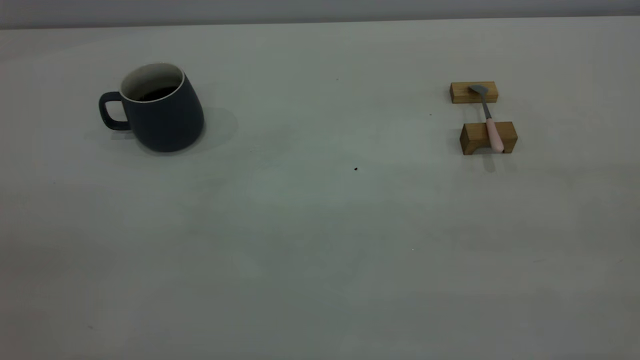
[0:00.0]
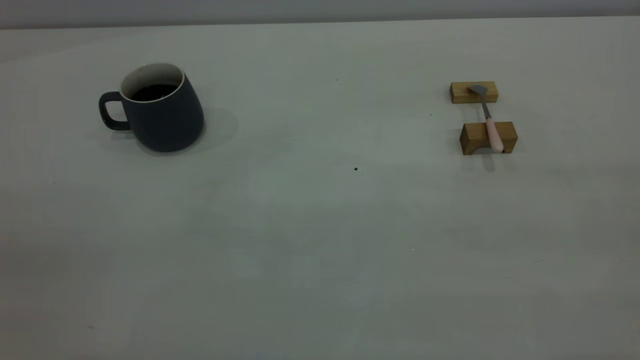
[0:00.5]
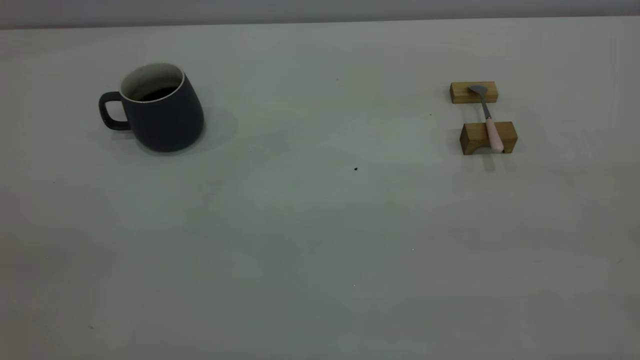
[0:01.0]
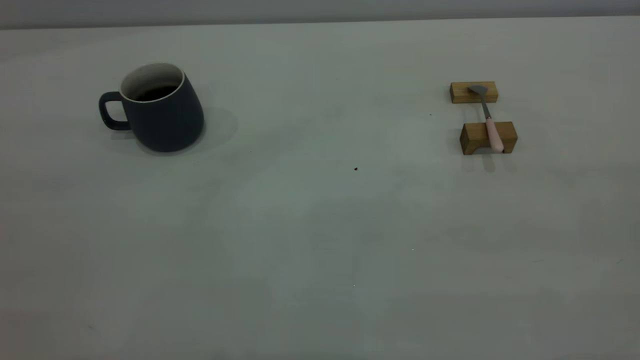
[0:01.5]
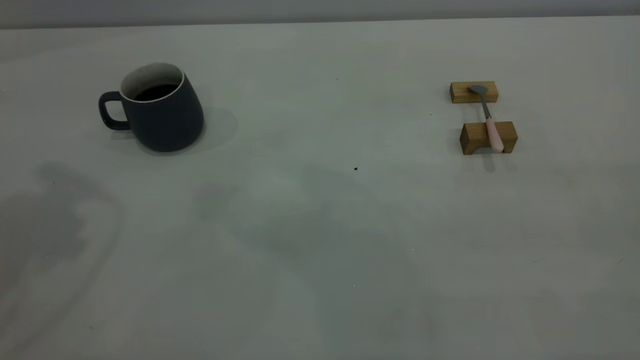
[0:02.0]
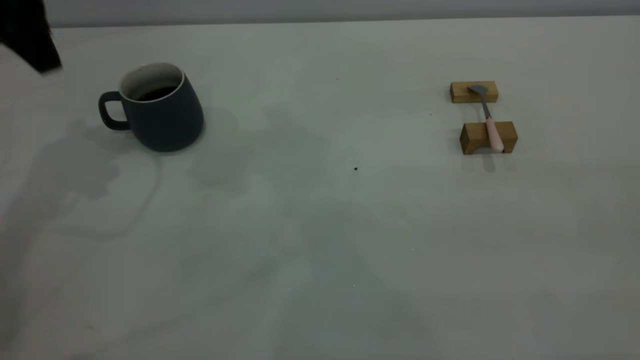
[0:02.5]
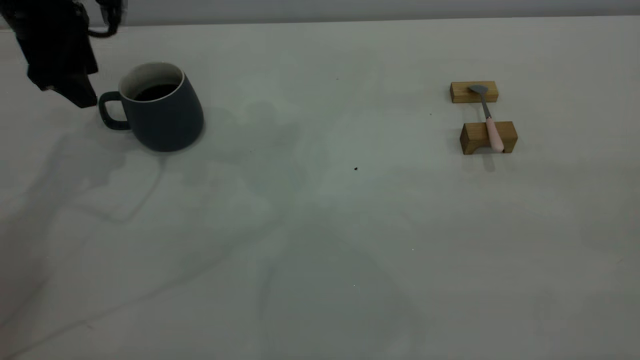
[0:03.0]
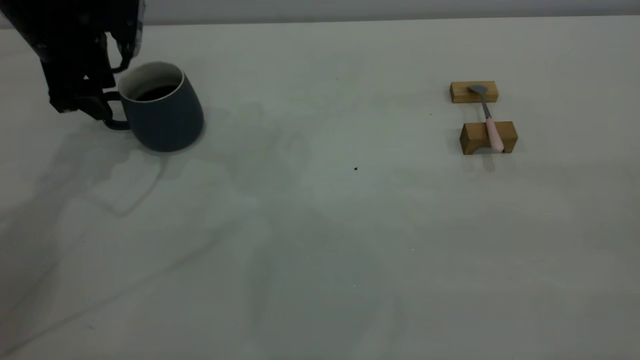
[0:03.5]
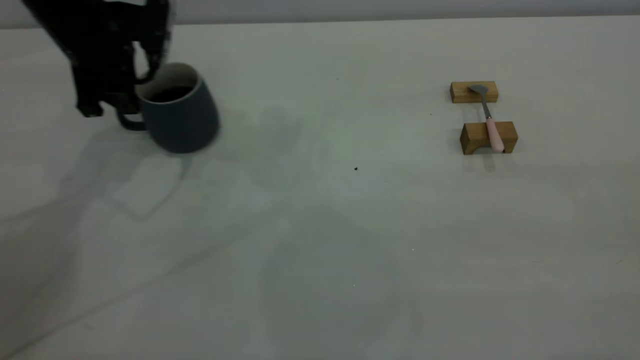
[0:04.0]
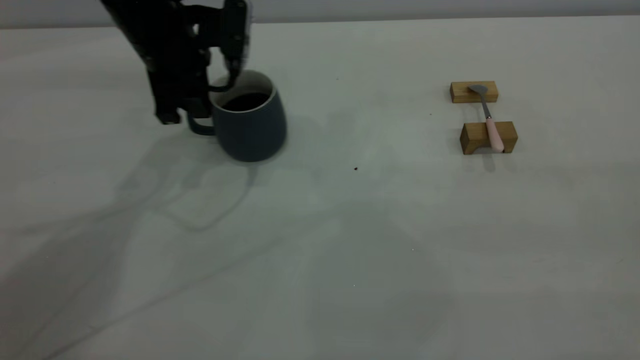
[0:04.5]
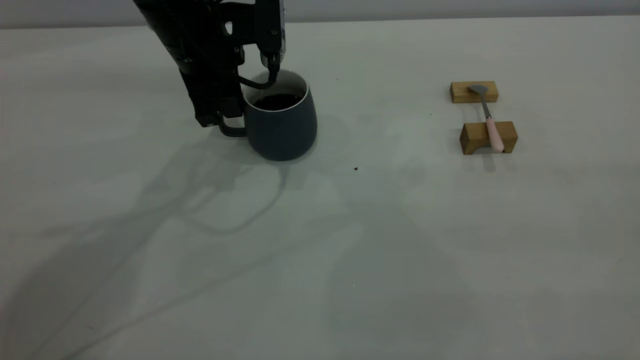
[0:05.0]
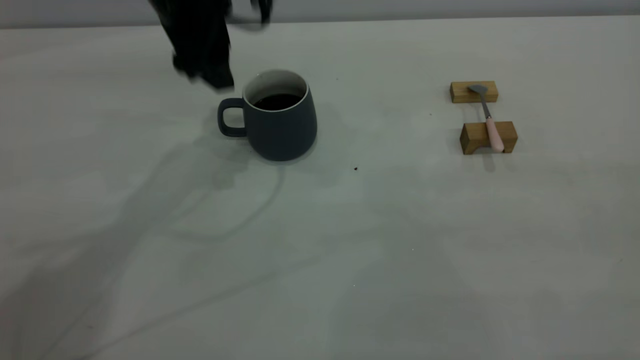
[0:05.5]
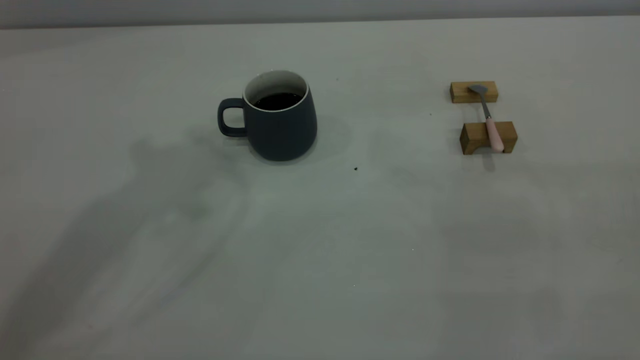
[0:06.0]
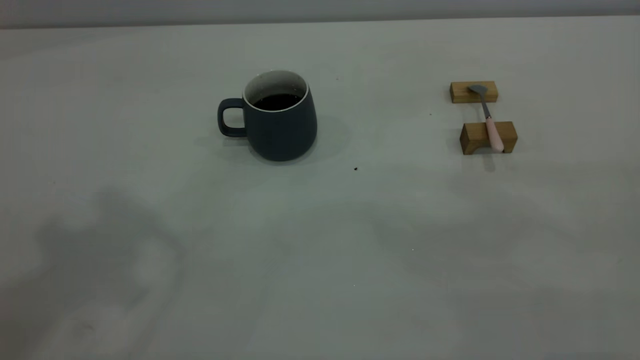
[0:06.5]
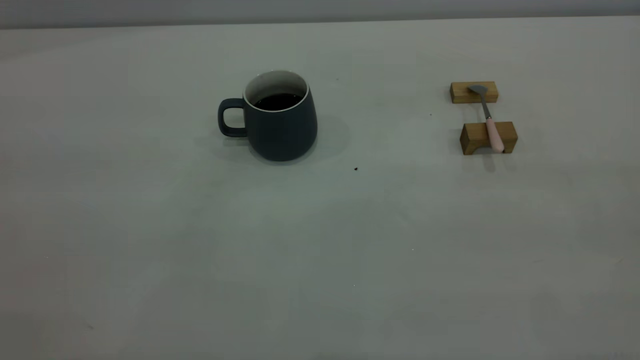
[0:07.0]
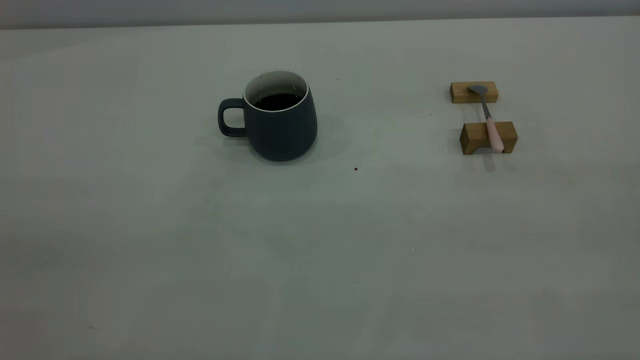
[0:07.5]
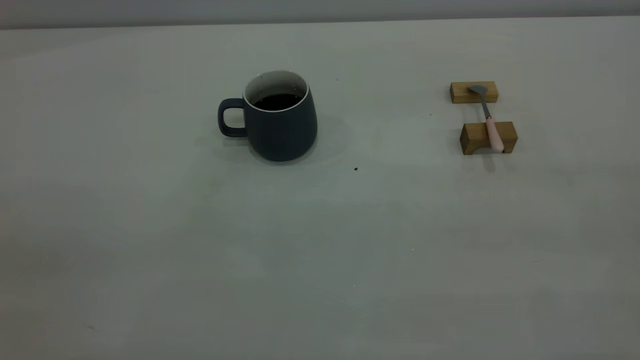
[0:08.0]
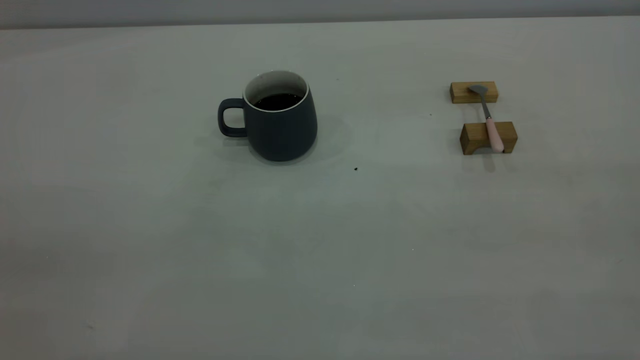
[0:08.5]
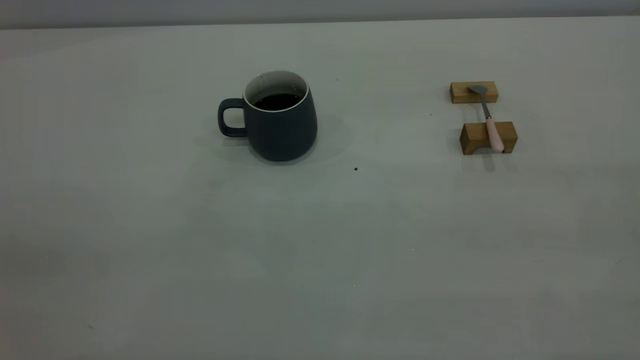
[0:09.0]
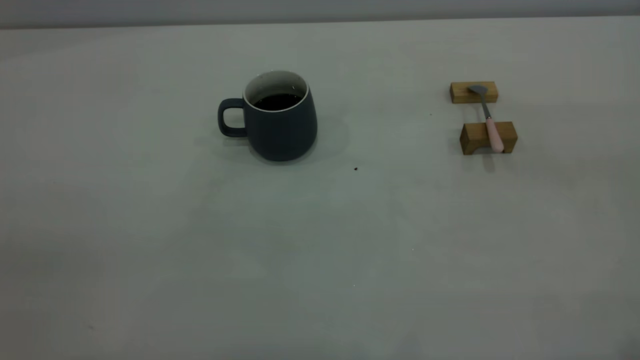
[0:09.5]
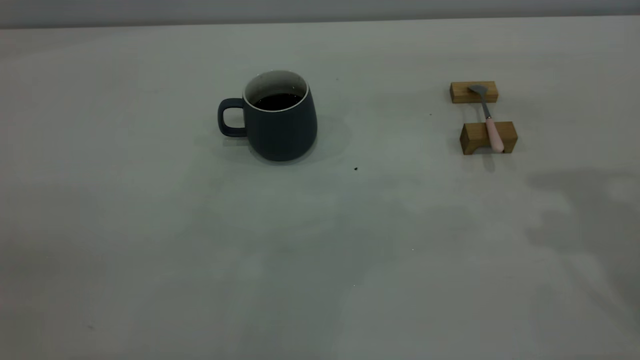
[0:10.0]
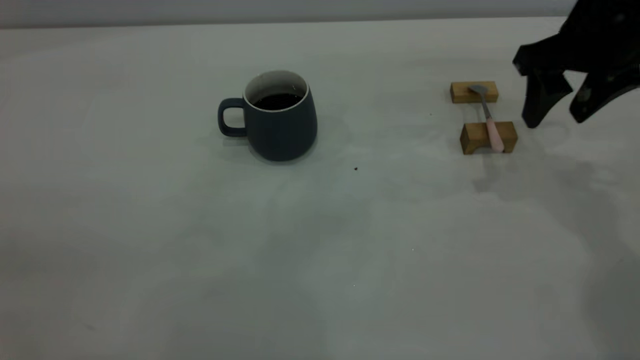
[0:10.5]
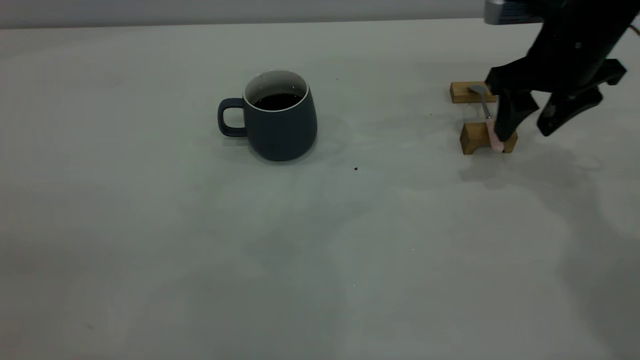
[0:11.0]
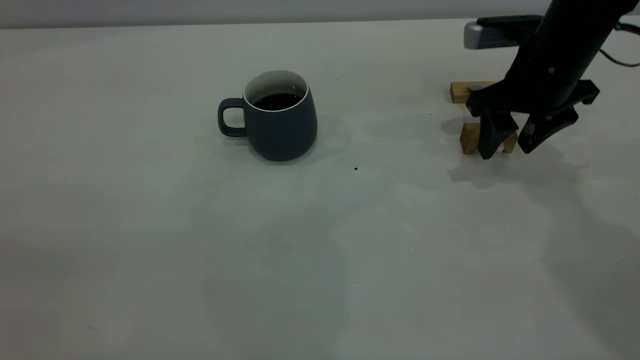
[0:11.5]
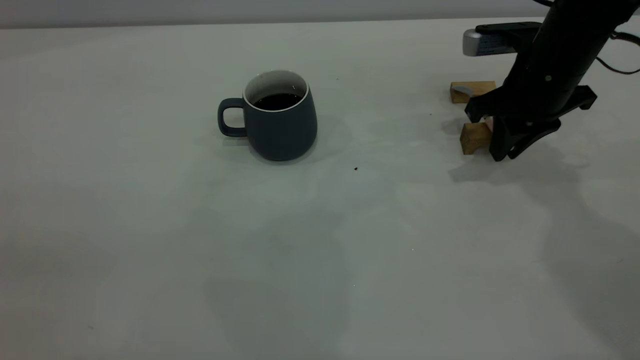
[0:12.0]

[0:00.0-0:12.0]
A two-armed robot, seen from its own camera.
Step, 0:00.0 to 0:05.5: Move the cup with coffee to the center of view.
0:02.0 to 0:04.0: The left gripper moves downward and forward, approximately 25 cm, and closes.
0:04.0 to 0:06.0: The left gripper shifts some 30 cm upward and backward, and opens its fingers.
0:10.0 to 0:12.0: The right gripper goes roughly 20 cm downward and forward, and closes its fingers.

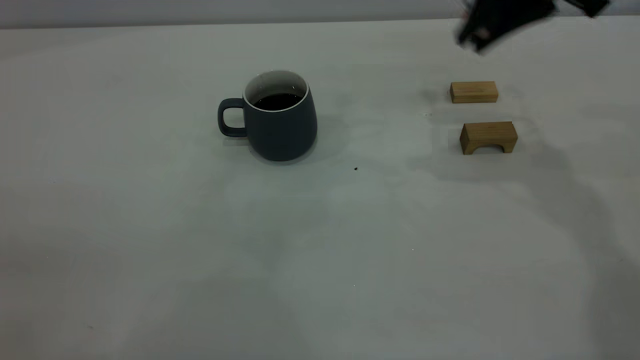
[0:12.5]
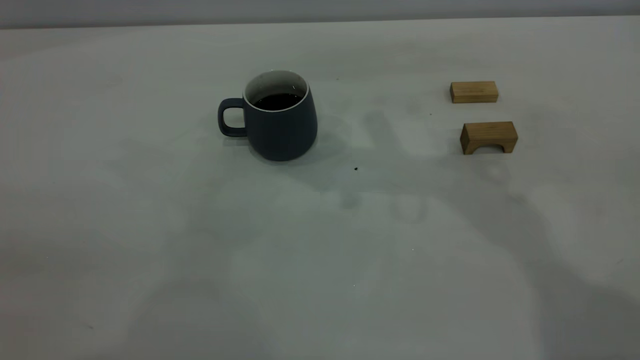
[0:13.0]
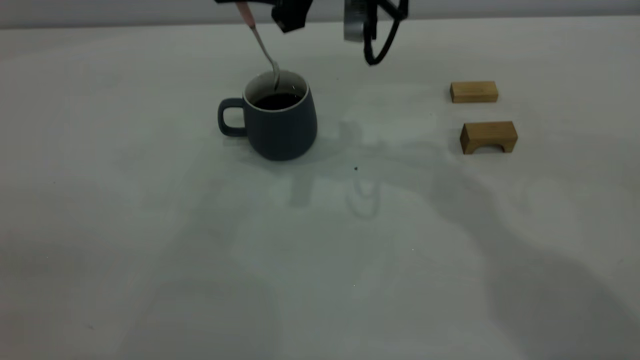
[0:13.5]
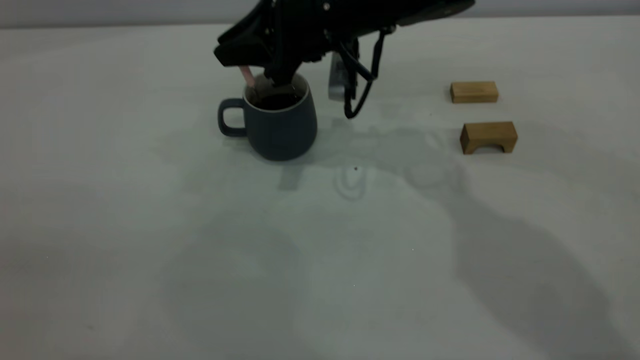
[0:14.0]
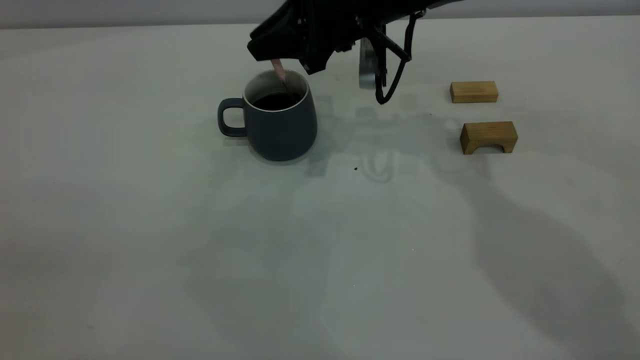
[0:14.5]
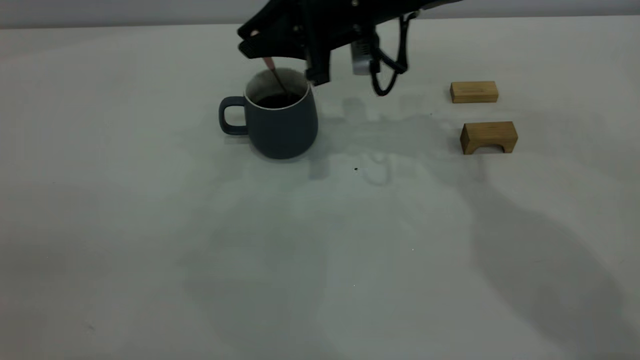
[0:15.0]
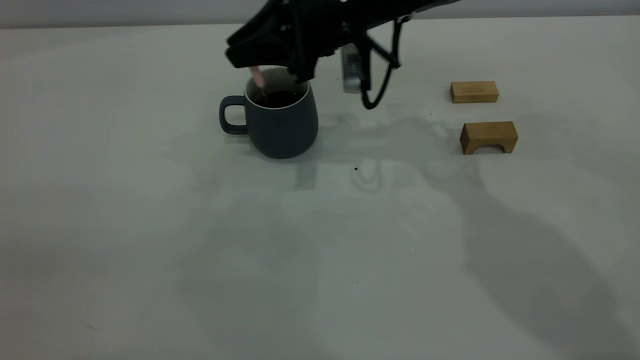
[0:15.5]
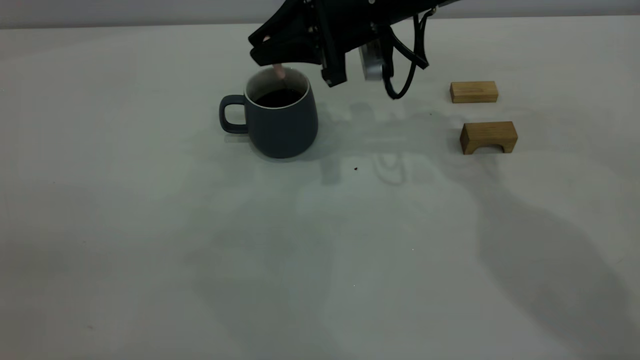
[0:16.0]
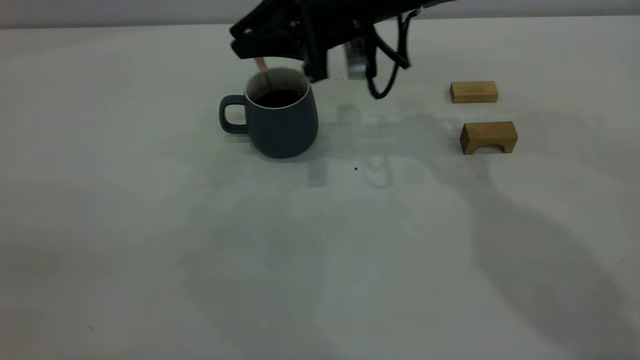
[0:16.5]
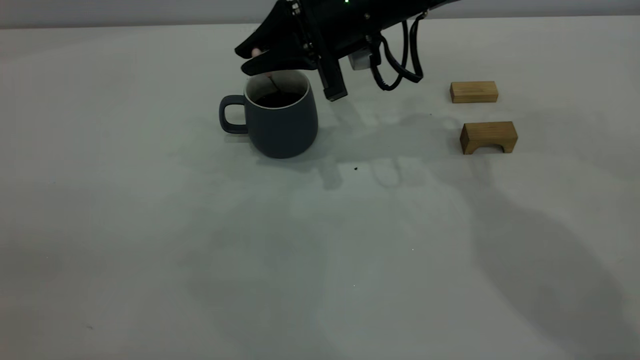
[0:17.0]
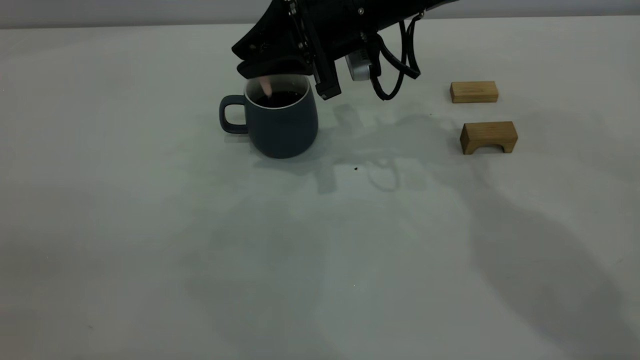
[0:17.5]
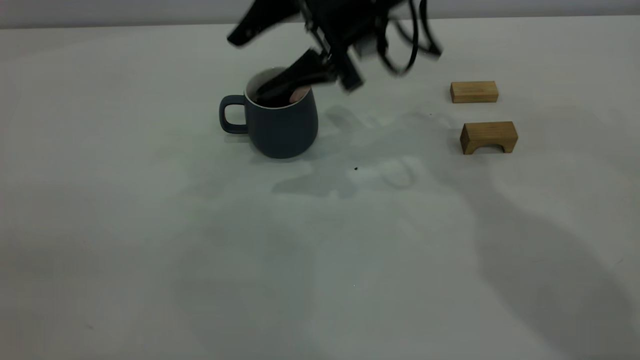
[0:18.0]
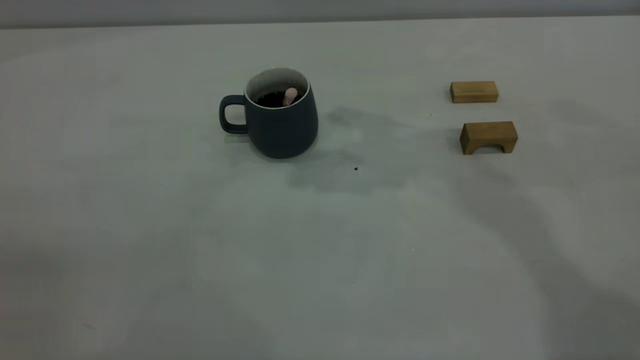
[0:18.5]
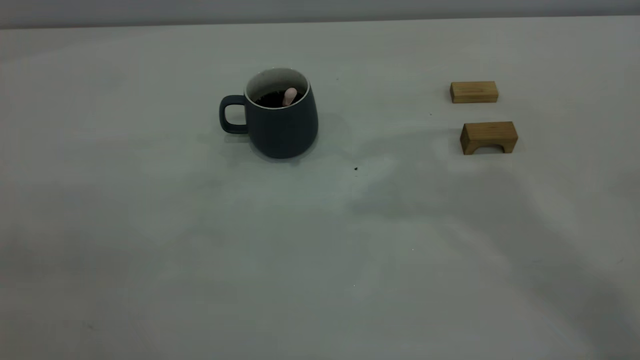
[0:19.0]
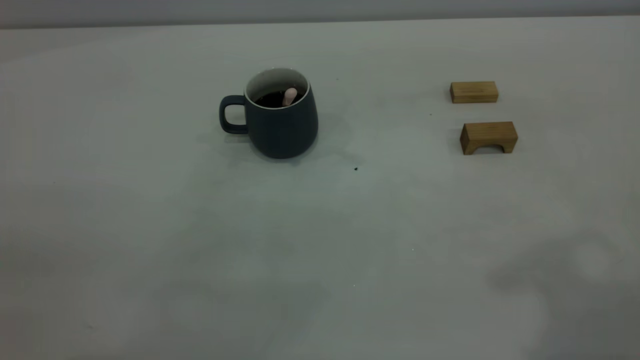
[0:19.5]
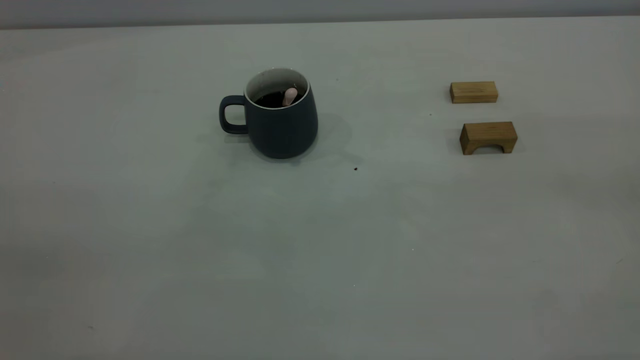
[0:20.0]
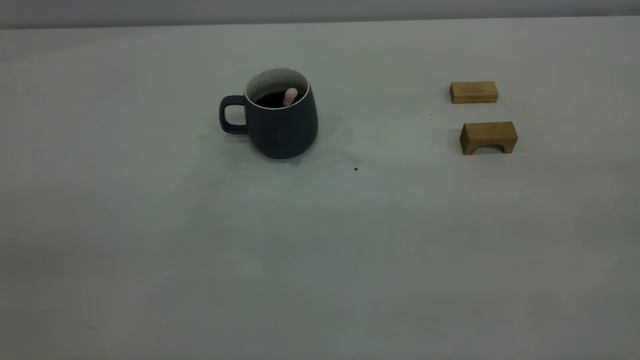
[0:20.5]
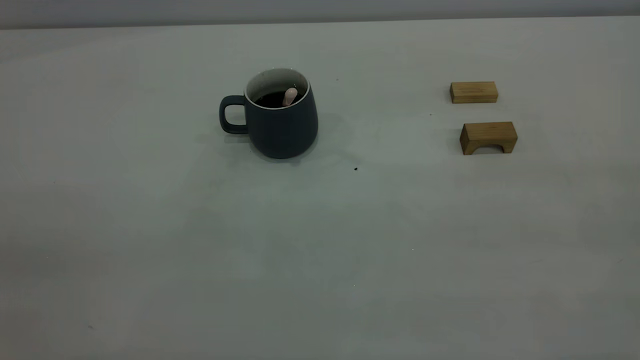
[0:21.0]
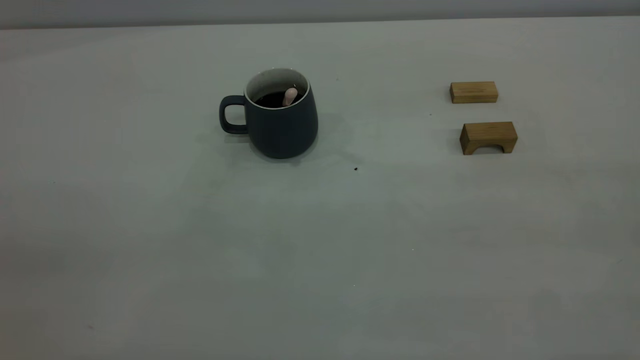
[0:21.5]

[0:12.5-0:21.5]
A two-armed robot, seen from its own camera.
Step, 0:12.5 to 0:18.0: Stir the coffee in the cup.
0:12.5 to 0:14.5: The right gripper heads to the left, downward and forward, covering about 20 cm.
0:17.0 to 0:19.5: The right gripper is displaced upward, backward and to the right by some 40 cm, and opens and closes again.
